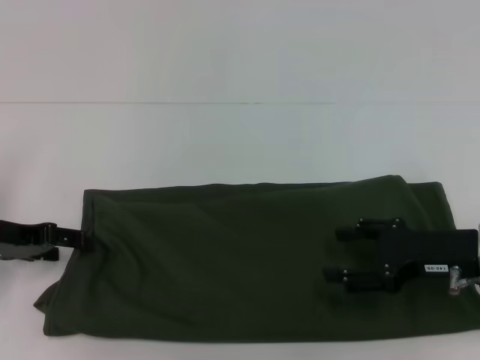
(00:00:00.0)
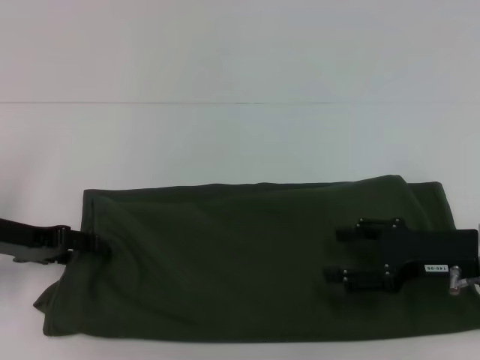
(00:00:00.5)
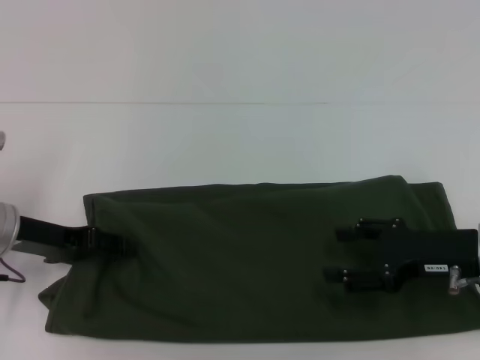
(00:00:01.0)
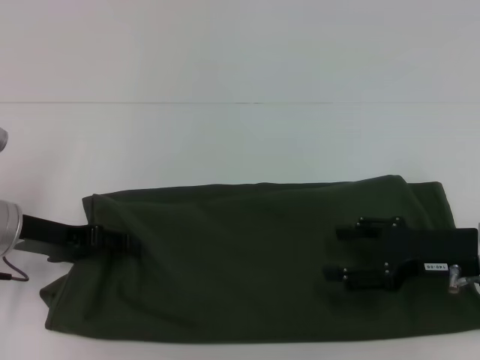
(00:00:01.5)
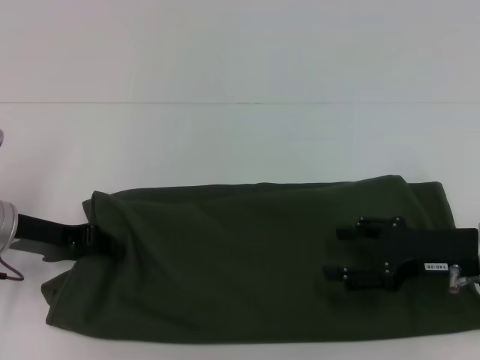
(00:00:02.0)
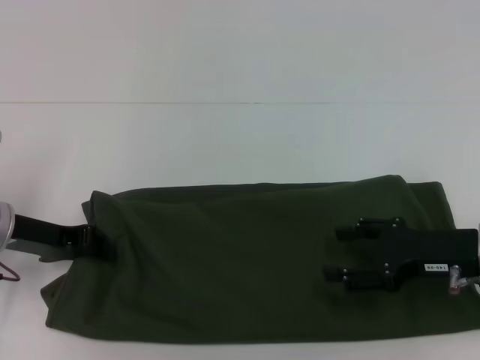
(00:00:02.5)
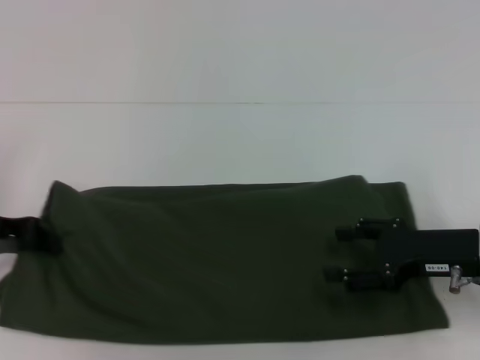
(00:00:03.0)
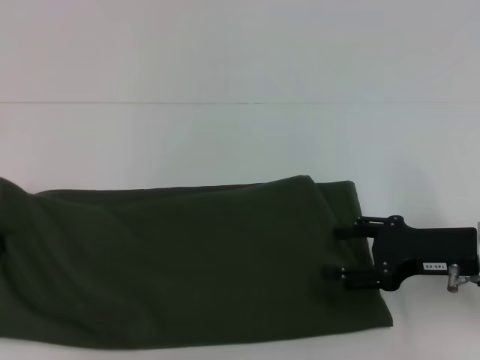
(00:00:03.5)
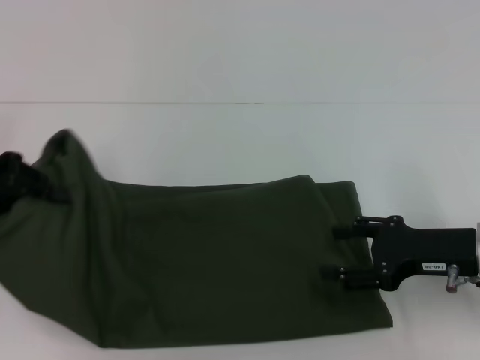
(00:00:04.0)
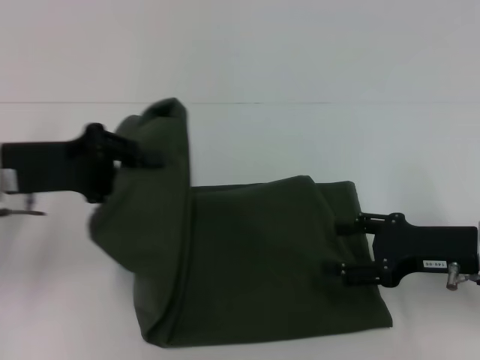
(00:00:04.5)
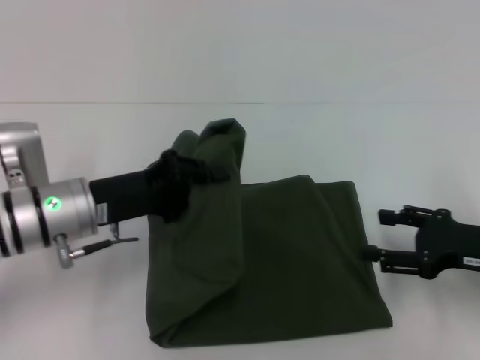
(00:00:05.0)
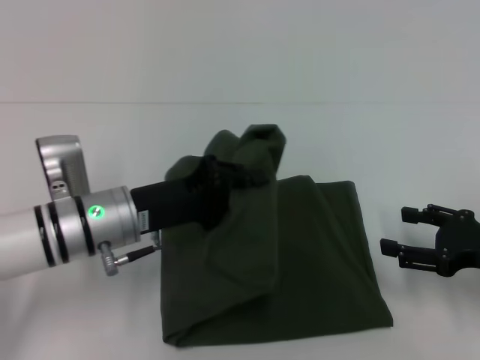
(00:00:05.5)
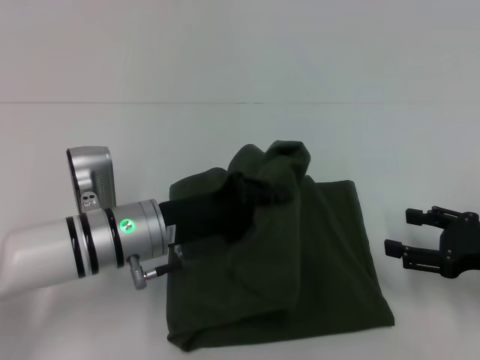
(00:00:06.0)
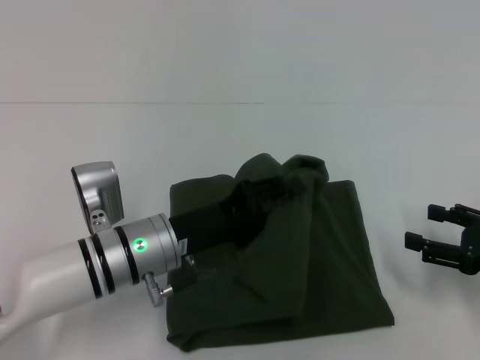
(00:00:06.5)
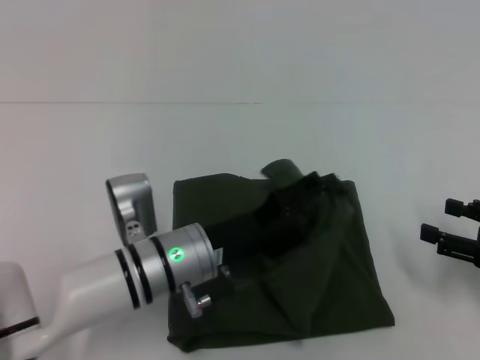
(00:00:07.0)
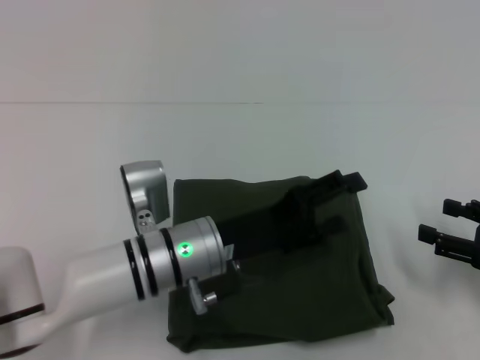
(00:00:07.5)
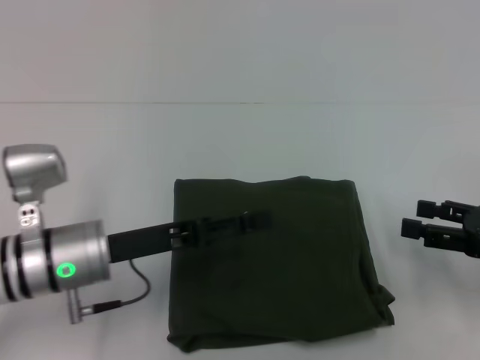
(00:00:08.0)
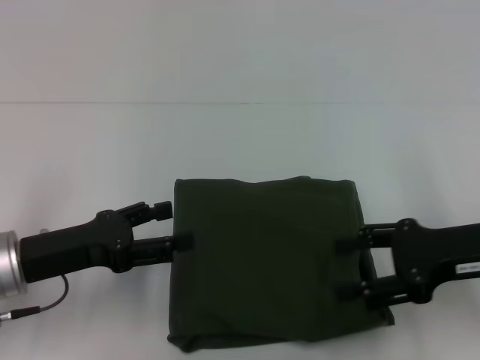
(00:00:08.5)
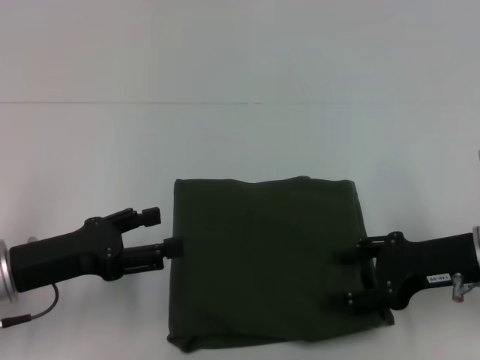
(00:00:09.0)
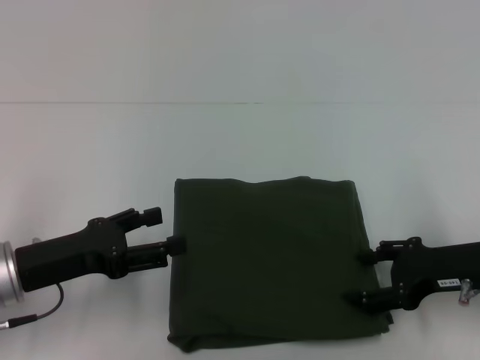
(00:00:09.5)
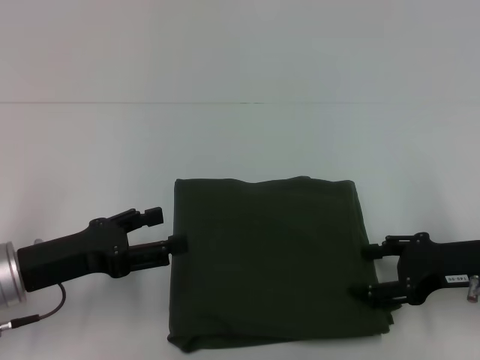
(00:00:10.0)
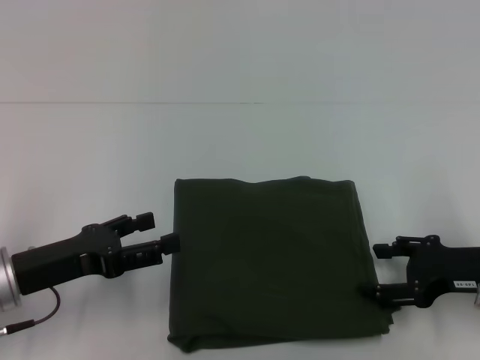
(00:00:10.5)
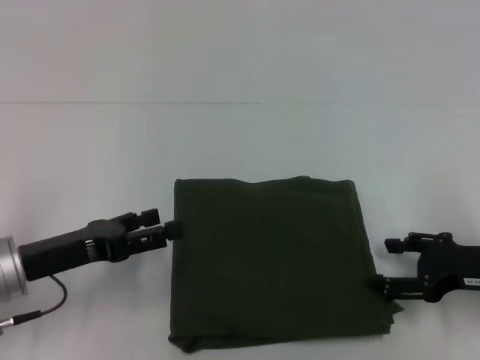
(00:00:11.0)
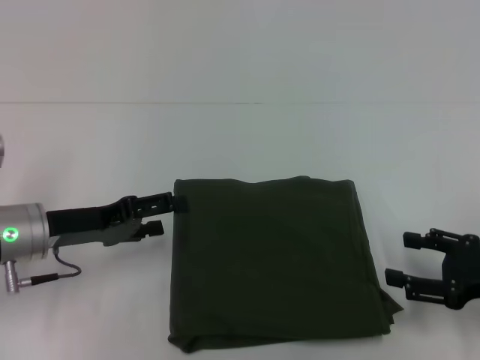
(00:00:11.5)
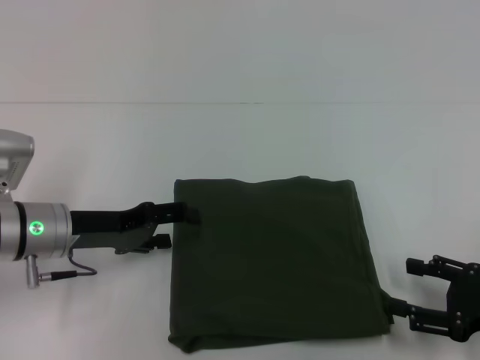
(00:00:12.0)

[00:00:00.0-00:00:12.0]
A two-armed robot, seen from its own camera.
Step, 00:00:00.0 to 00:00:08.0: Fold the clothes with your left hand.
00:00:00.0 to 00:00:02.0: The left gripper closes up.
00:00:02.0 to 00:00:04.0: The left gripper moves upward and to the left, roughly 10 cm, and closes its fingers.
00:00:04.0 to 00:00:06.0: The right gripper shifts approximately 5 cm to the right. Meanwhile the left gripper travels to the right and downward by approximately 25 cm.
00:00:06.0 to 00:00:08.0: The left gripper ends up approximately 5 cm from where it was, and opens.
00:00:08.0 to 00:00:10.0: The two grippers go about 5 cm to the left.
00:00:10.0 to 00:00:12.0: The right gripper travels backward by roughly 5 cm, while the left gripper is displaced forward by roughly 5 cm.

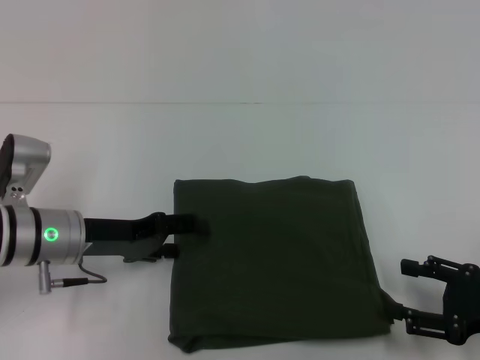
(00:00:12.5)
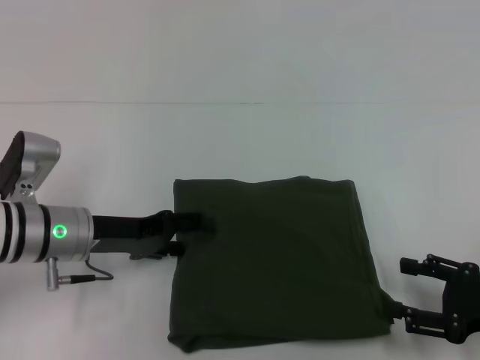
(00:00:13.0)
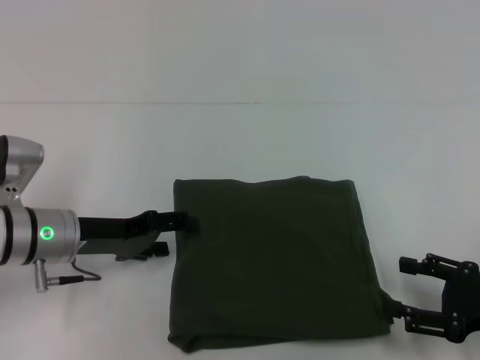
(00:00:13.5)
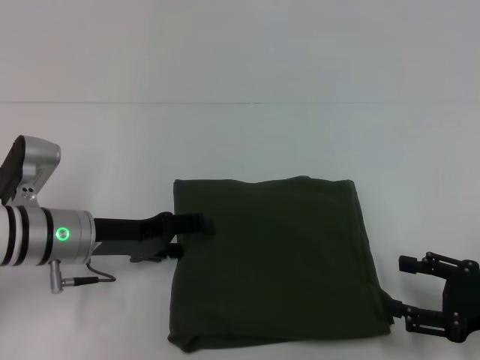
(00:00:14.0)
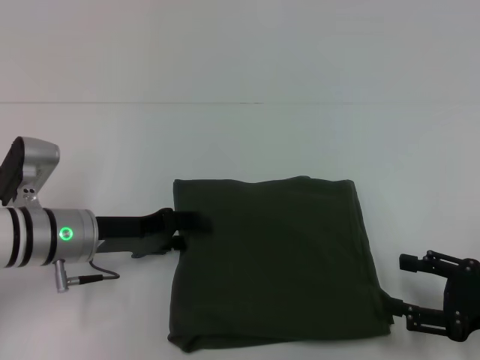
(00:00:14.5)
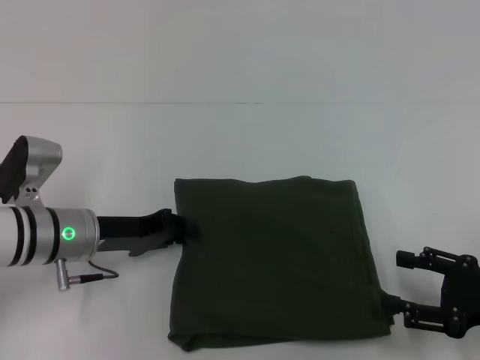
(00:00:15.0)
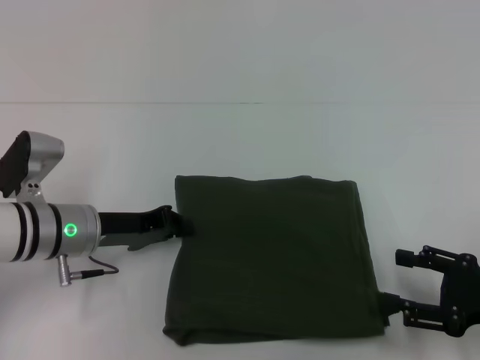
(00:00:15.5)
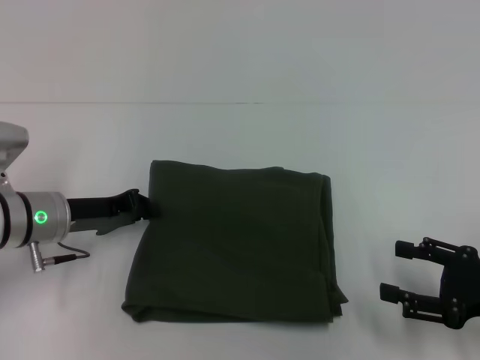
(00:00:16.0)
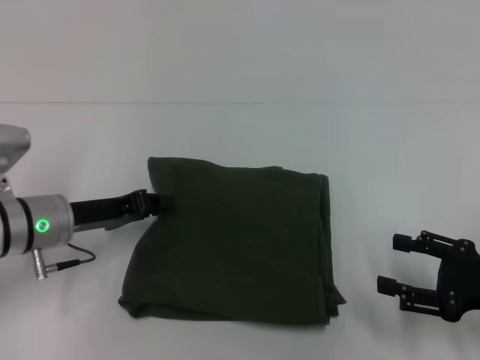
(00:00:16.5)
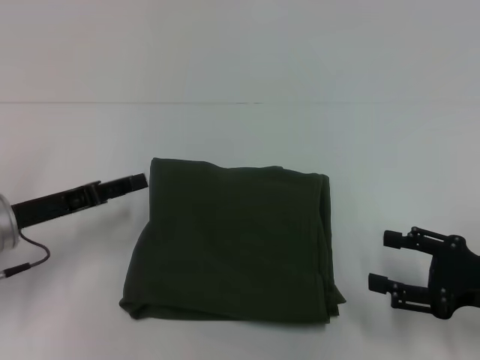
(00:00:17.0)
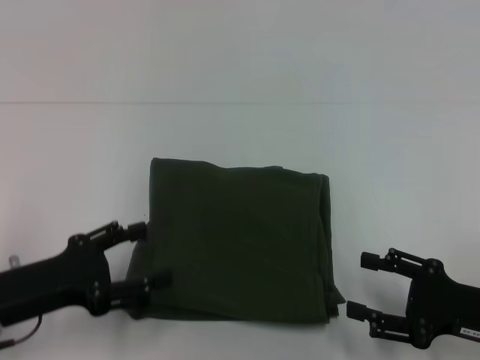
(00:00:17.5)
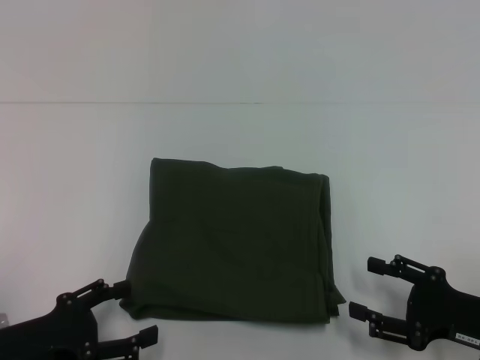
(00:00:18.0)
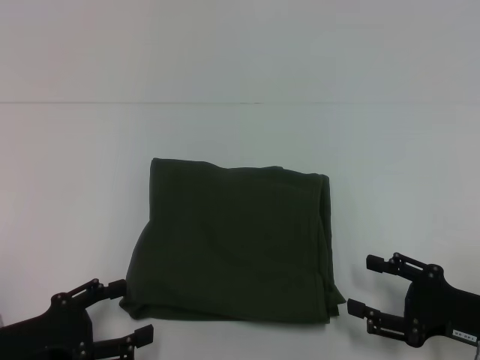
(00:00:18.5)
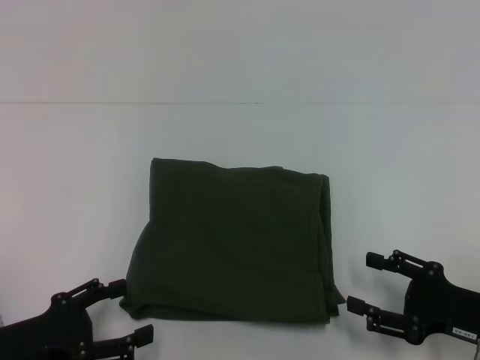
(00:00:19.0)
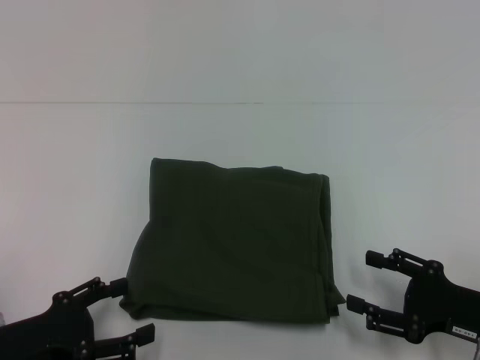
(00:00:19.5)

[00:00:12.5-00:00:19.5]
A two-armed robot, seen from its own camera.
00:00:12.5 to 00:00:14.5: The grippers move only a little.
00:00:14.5 to 00:00:16.0: The left gripper closes up.
00:00:16.0 to 00:00:17.5: The left gripper moves backward, approximately 10 cm, and opens up.
00:00:17.5 to 00:00:19.5: The left gripper changes place by approximately 5 cm.

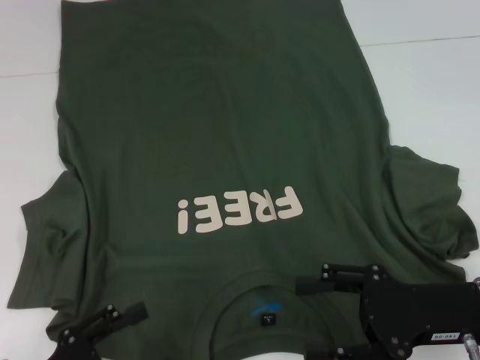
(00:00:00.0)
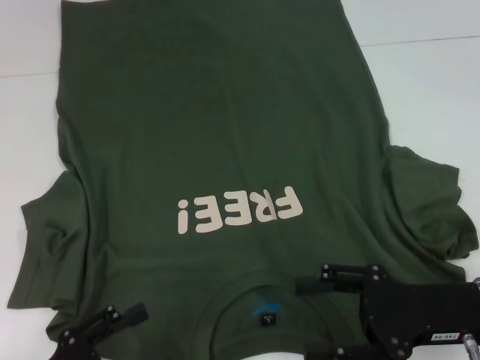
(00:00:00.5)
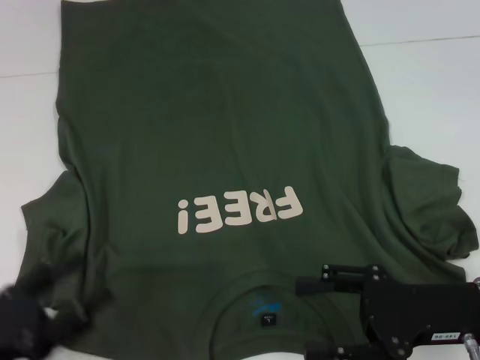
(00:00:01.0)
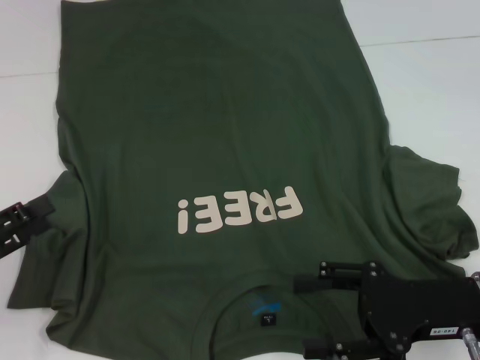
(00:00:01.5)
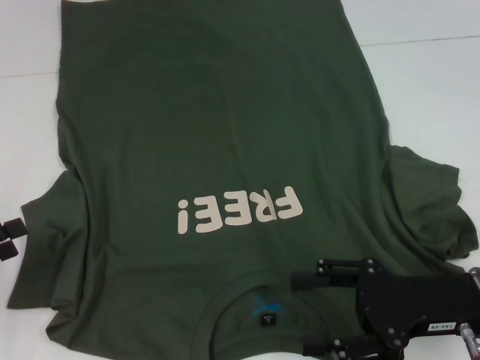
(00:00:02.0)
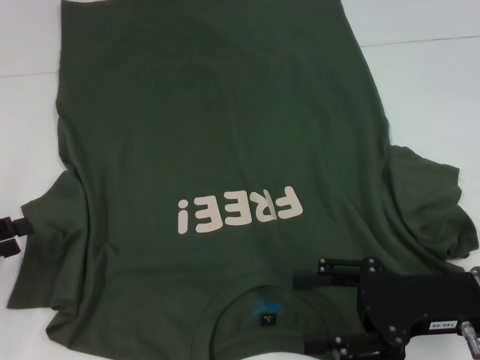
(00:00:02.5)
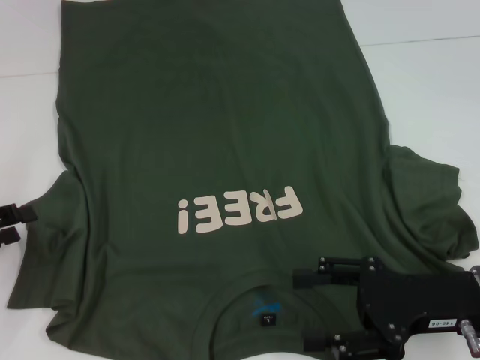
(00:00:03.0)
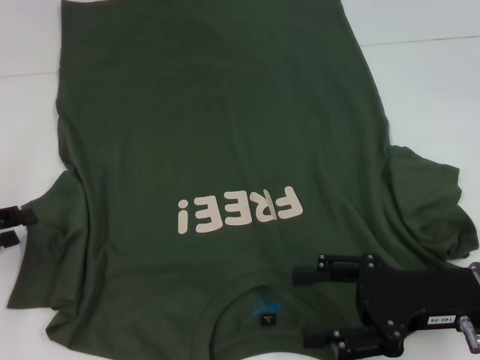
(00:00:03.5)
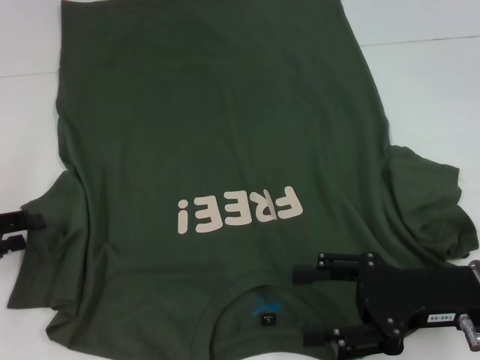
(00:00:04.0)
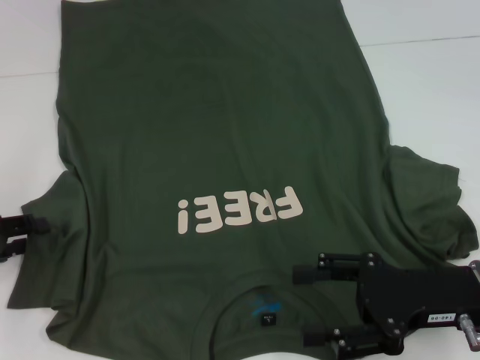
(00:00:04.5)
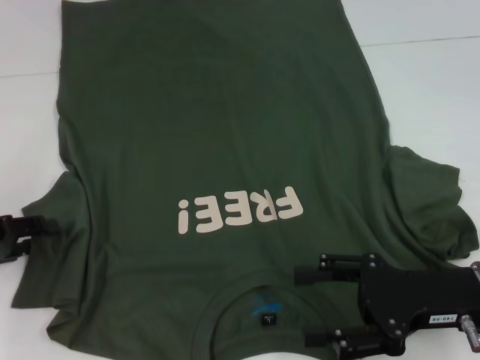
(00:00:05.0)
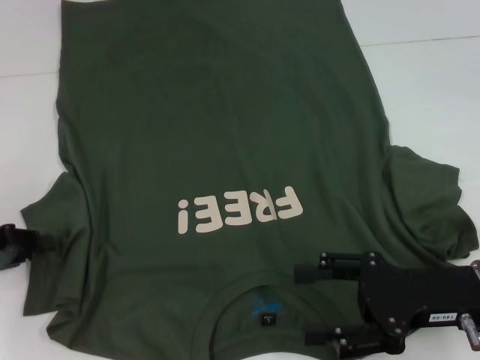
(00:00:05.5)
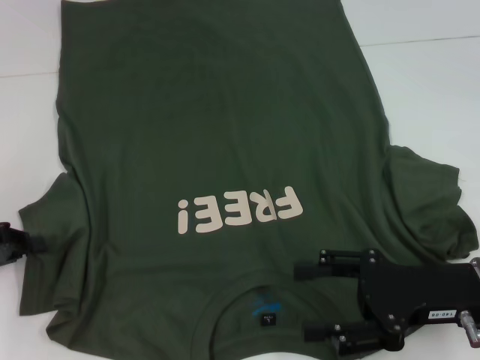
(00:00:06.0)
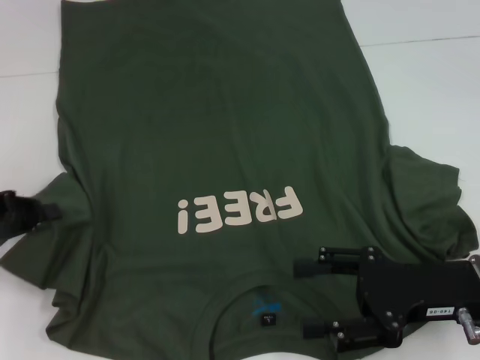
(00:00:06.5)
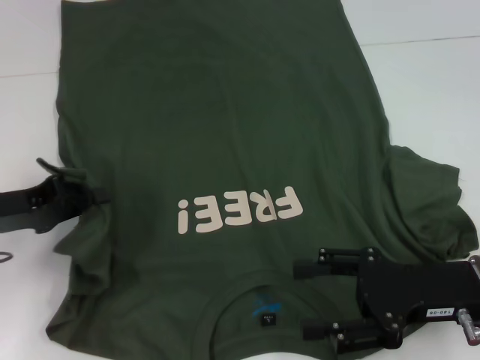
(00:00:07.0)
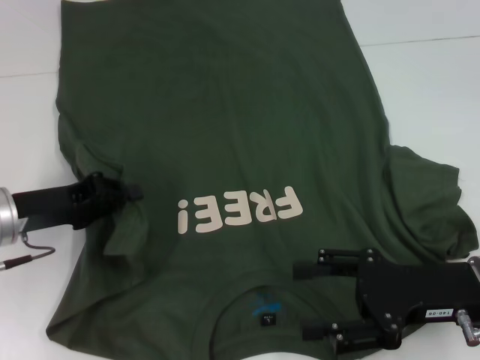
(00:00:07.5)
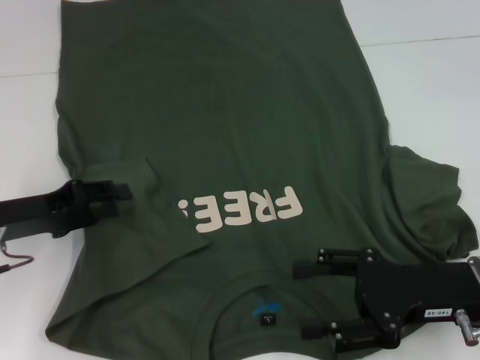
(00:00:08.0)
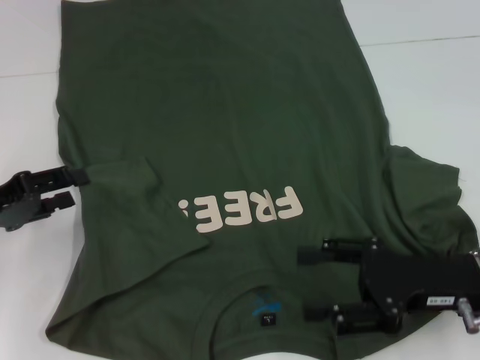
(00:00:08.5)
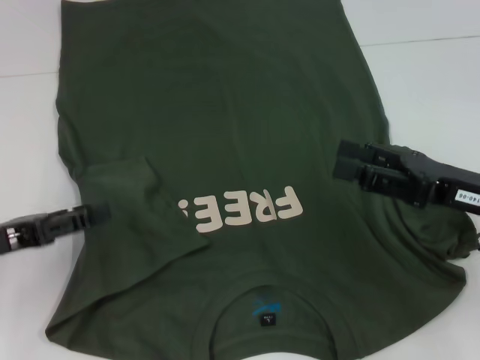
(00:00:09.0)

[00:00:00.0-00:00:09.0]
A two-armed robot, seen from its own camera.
Step, 00:00:00.0 to 00:00:08.0: Fold the bottom left sleeve with your left hand.
00:00:00.0 to 00:00:02.0: The left gripper shifts approximately 15 cm to the left, forward and upward.
00:00:02.0 to 00:00:04.5: The left gripper moves forward, approximately 5 cm.
00:00:04.5 to 00:00:07.0: The left gripper moves to the right, approximately 5 cm, and closes.
00:00:07.0 to 00:00:09.0: The right gripper changes place by roughly 5 cm; the left gripper opens up.
